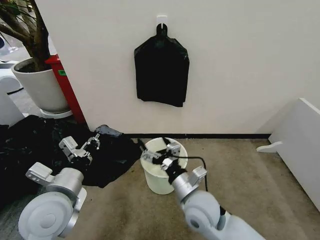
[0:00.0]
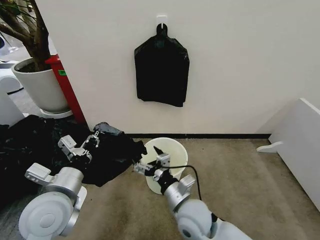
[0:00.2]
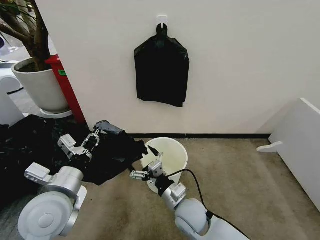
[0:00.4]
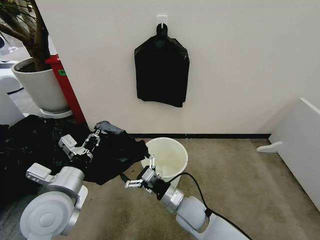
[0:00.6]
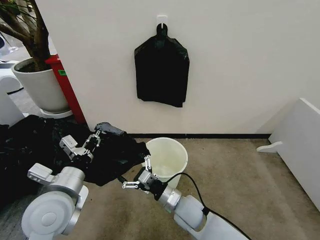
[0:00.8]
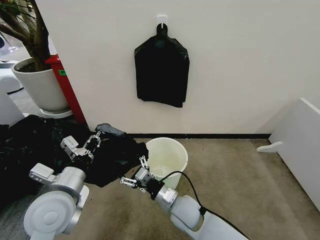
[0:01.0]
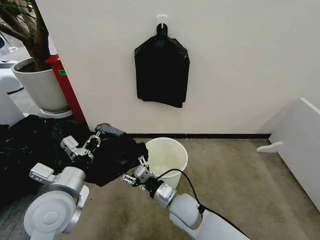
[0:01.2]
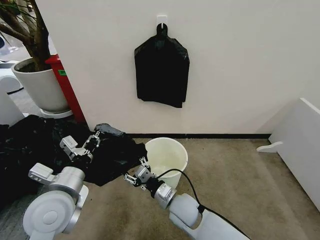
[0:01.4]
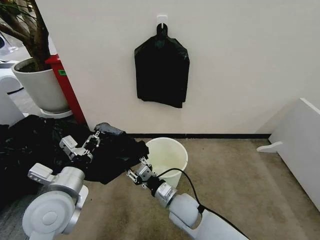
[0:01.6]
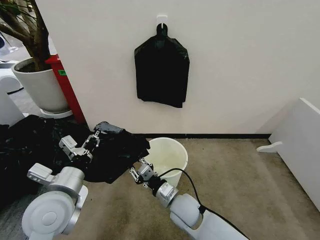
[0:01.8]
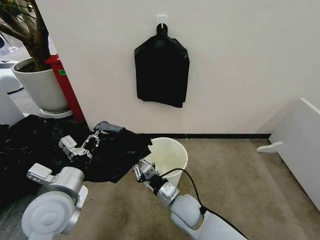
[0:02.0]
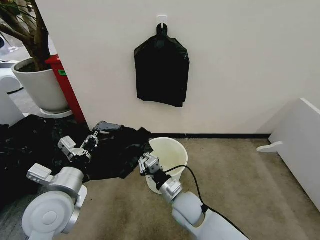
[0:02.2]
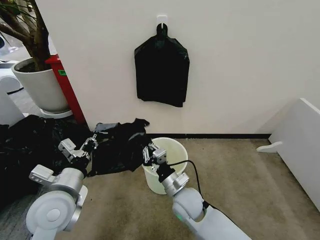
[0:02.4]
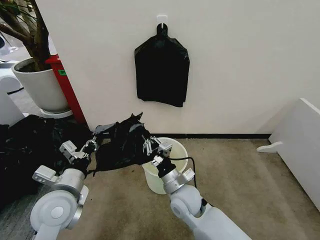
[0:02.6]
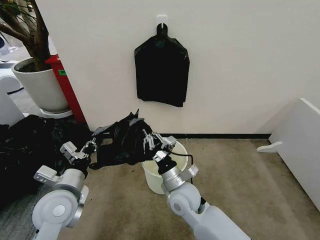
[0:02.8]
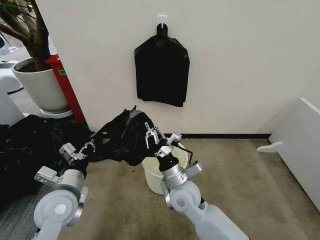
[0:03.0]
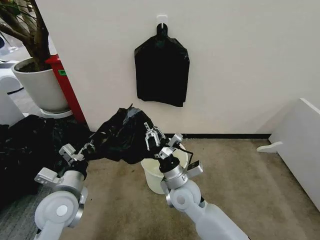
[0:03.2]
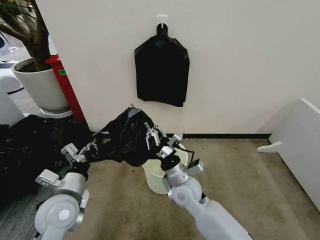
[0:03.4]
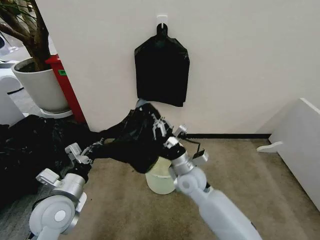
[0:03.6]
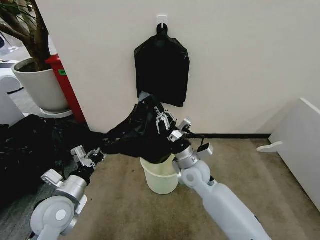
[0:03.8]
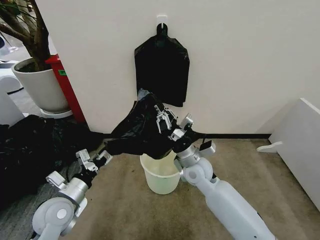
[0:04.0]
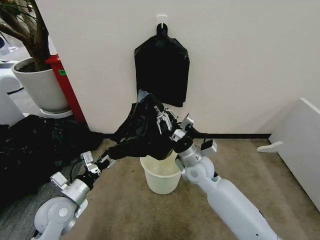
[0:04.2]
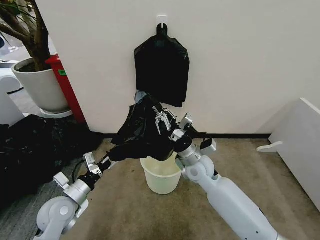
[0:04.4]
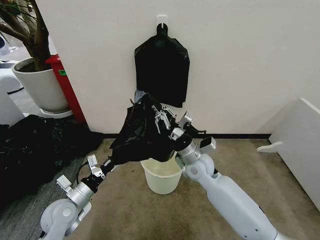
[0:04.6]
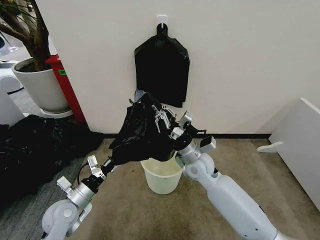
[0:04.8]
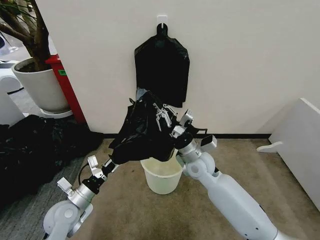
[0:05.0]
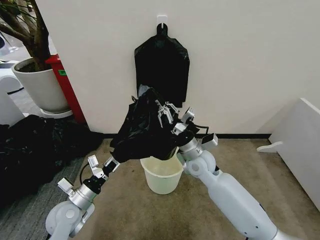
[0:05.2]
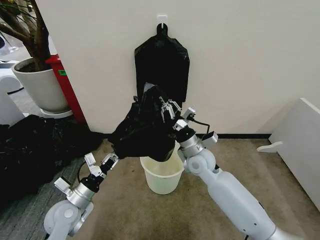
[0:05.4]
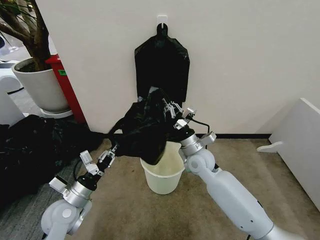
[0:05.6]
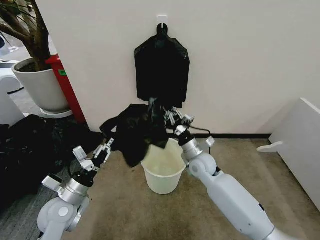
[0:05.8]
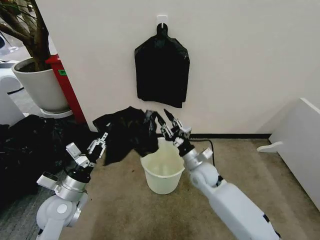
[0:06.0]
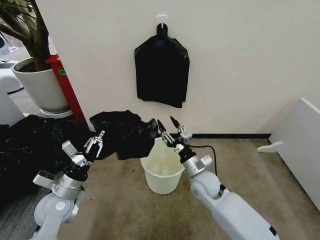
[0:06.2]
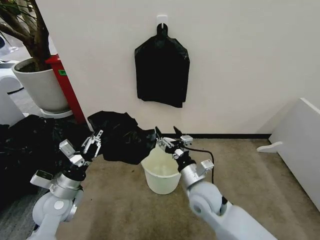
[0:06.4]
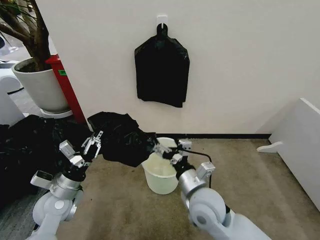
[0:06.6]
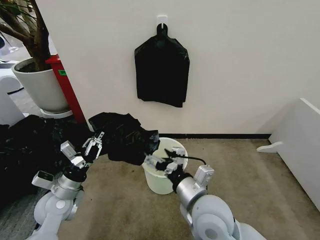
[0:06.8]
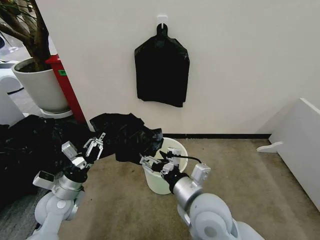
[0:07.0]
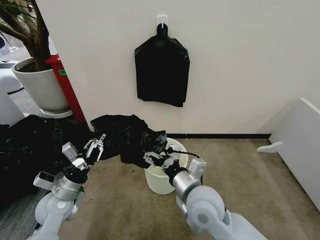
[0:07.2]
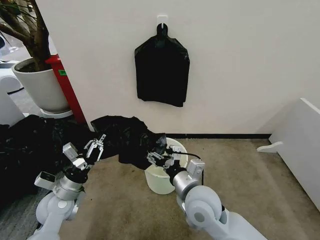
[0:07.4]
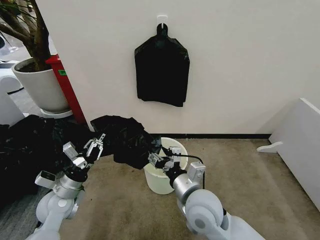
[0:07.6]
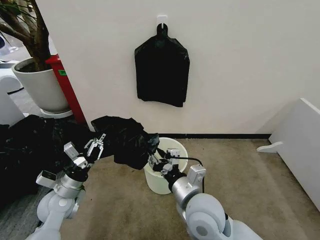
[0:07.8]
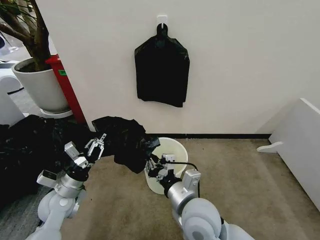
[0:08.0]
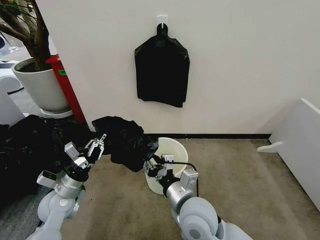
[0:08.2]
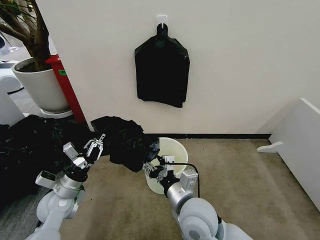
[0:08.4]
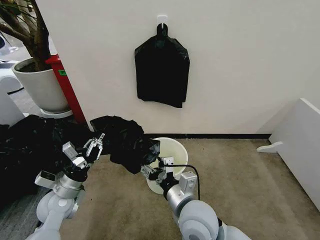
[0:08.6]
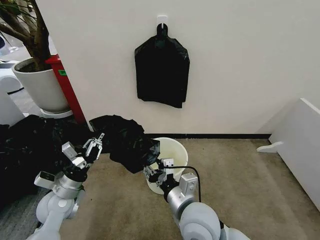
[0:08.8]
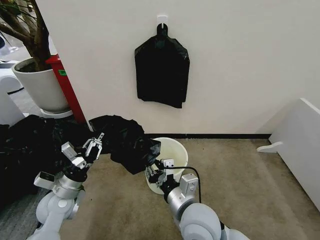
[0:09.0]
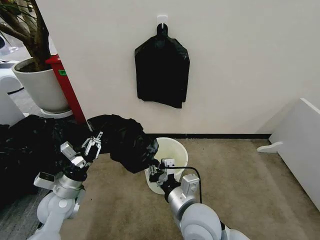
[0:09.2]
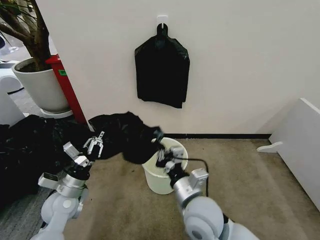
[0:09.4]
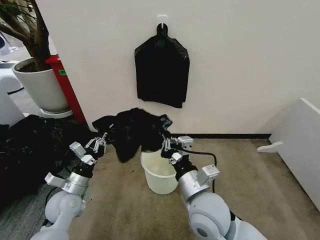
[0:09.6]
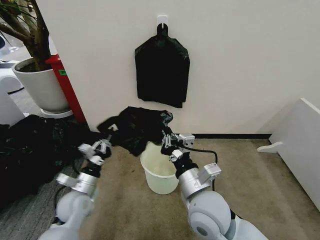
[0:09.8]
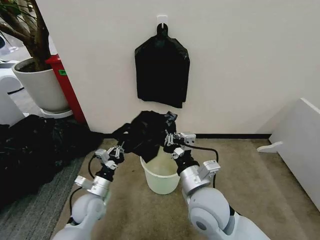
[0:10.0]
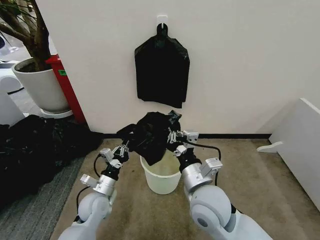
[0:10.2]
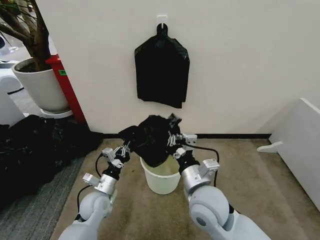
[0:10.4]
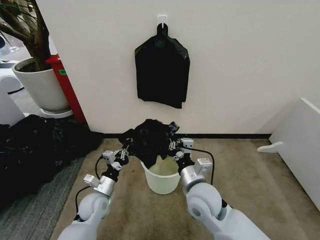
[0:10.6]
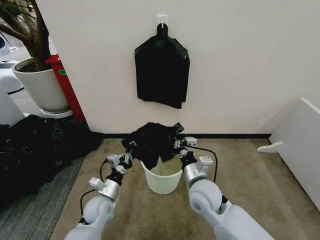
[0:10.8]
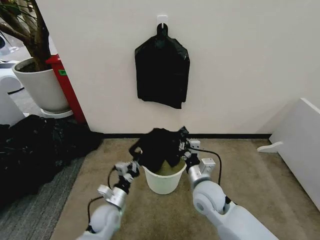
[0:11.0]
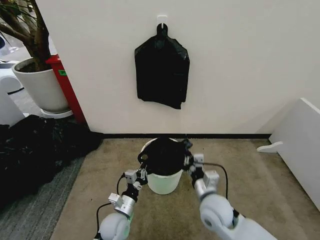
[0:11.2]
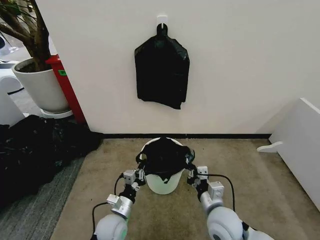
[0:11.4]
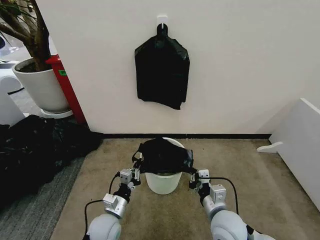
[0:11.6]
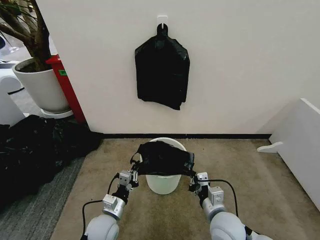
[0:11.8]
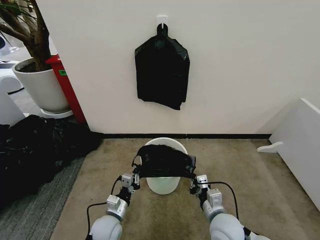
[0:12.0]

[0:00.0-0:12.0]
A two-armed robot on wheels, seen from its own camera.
Task of the whole recording: Place the garbage bag over the trash bin.
0.0 to 1.6 s: The right gripper travels downward by some 10 cm, and closes.
1.6 to 3.0 s: The right gripper is displaced upward by approximately 5 cm, and closes its fingers, while the left gripper ends up approximately 5 cm from where it was.
3.0 to 4.4 s: The left gripper travels downward by approximately 10 cm, and opens. Meanwhile the right gripper heads forward and to the right, covering roughly 10 cm.
4.4 to 6.0 s: The right gripper is displaced downward by some 5 cm, and opens, while the left gripper closes its fingers.
6.0 to 7.6 s: The right gripper is displaced backward and upward by some 15 cm, and opens, then closes again.
7.6 to 9.0 s: The right gripper closes.
9.0 to 10.4 s: The left gripper goes approximately 10 cm to the right and downward.
10.4 to 12.0 s: The right gripper goes roughly 15 cm downward and to the right; the left gripper heads downward and backward, covering approximately 10 cm.

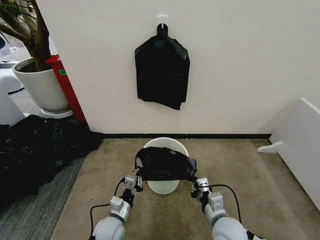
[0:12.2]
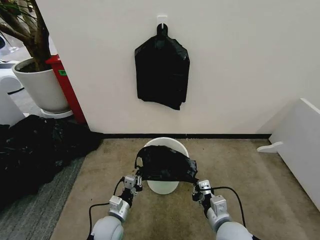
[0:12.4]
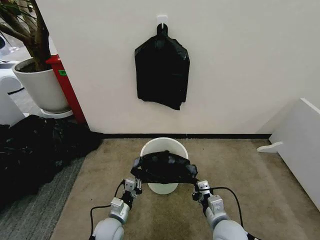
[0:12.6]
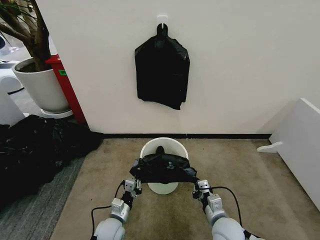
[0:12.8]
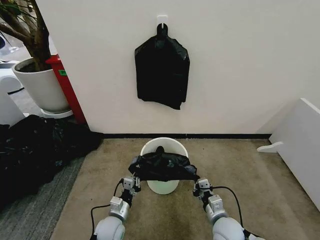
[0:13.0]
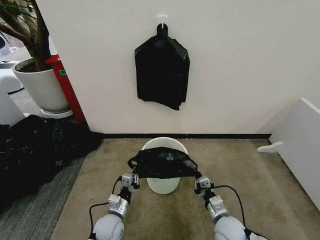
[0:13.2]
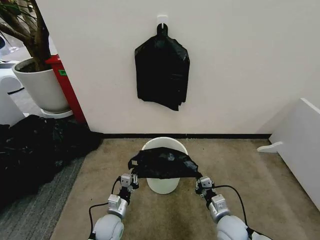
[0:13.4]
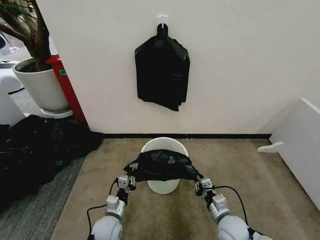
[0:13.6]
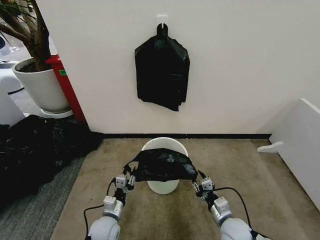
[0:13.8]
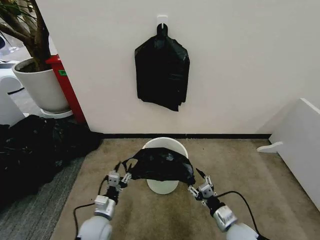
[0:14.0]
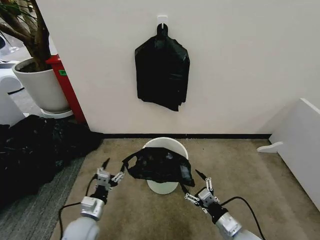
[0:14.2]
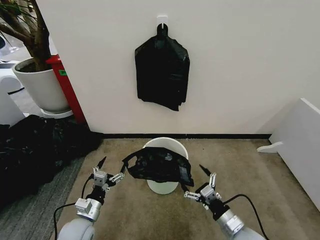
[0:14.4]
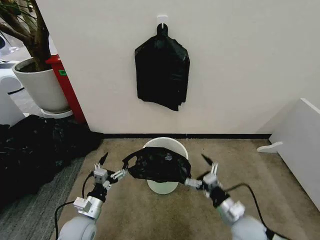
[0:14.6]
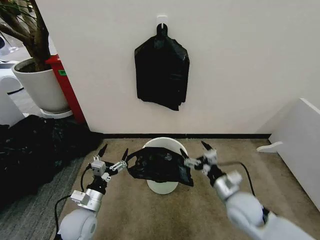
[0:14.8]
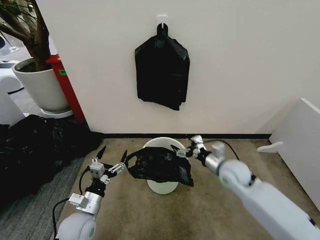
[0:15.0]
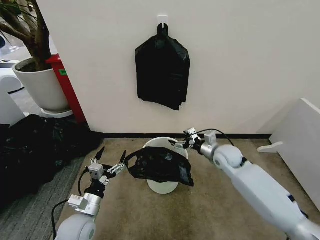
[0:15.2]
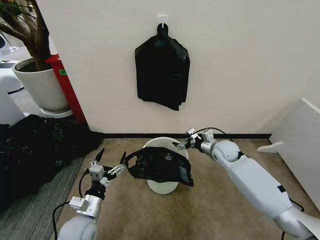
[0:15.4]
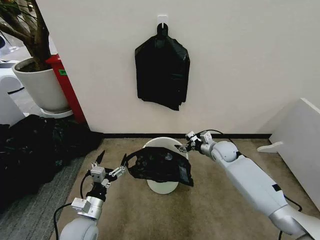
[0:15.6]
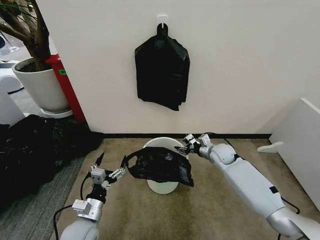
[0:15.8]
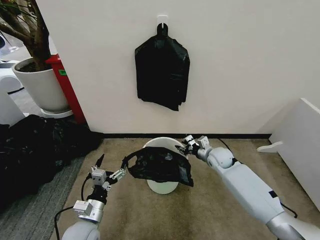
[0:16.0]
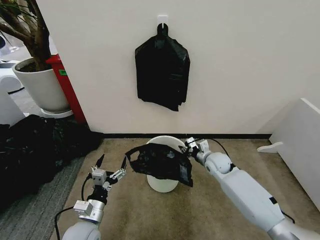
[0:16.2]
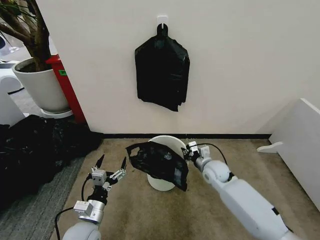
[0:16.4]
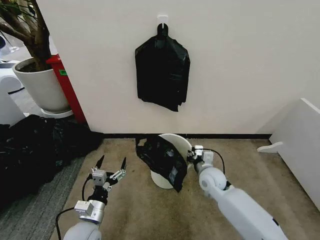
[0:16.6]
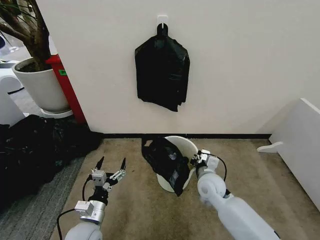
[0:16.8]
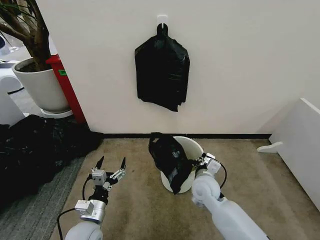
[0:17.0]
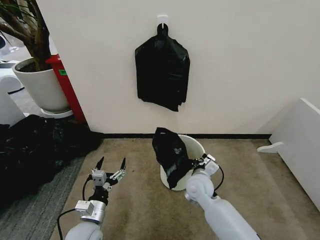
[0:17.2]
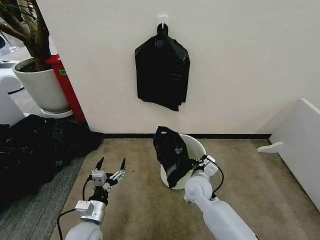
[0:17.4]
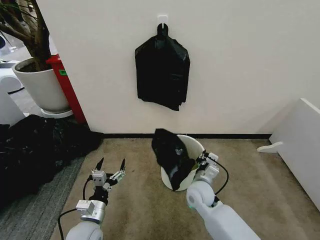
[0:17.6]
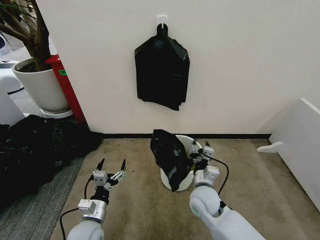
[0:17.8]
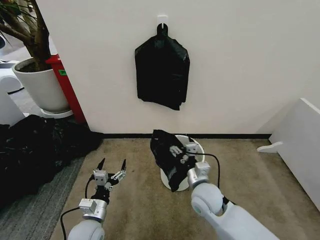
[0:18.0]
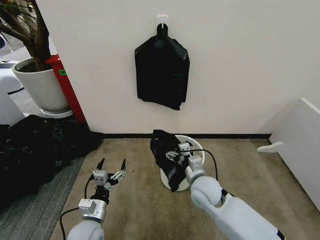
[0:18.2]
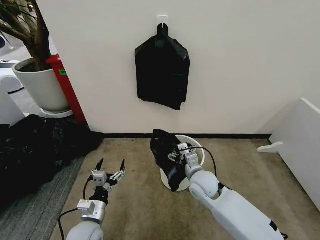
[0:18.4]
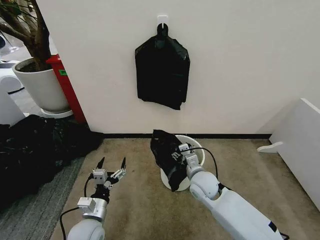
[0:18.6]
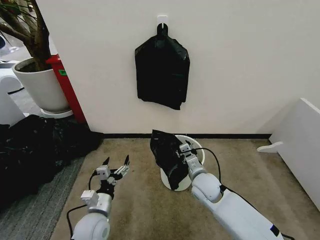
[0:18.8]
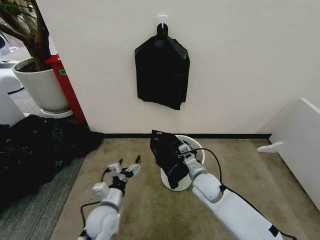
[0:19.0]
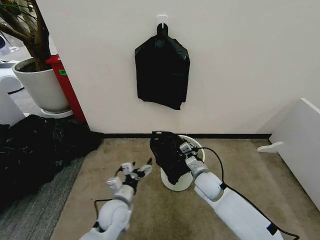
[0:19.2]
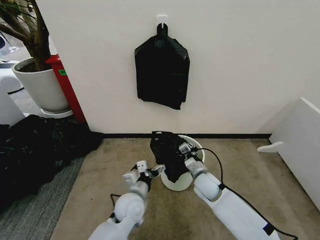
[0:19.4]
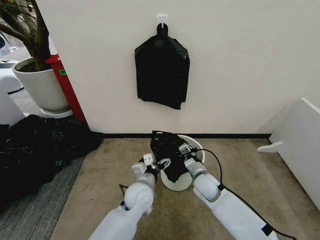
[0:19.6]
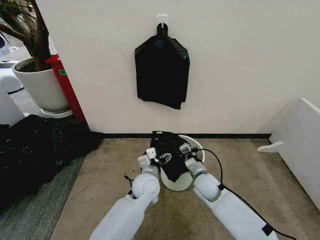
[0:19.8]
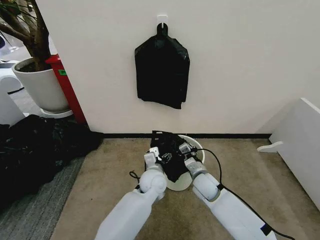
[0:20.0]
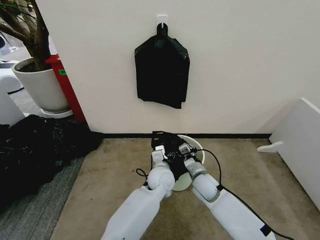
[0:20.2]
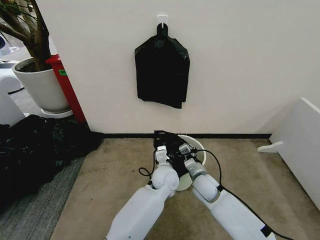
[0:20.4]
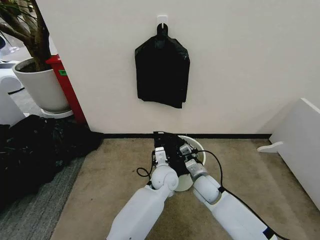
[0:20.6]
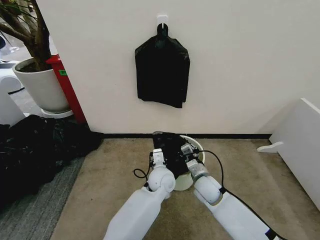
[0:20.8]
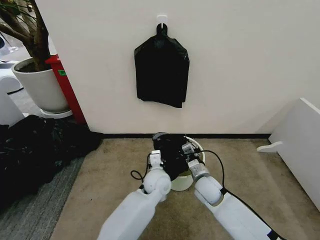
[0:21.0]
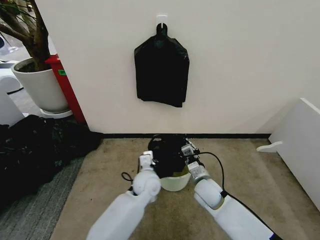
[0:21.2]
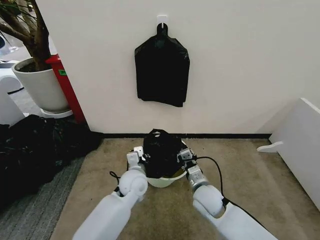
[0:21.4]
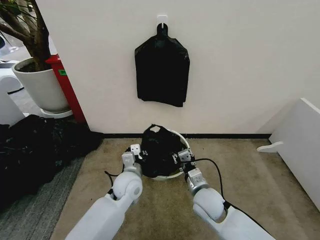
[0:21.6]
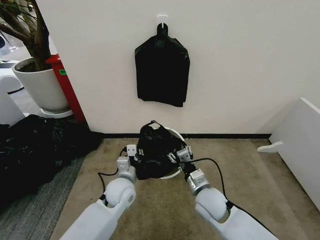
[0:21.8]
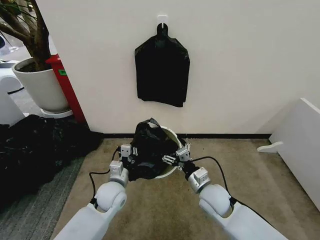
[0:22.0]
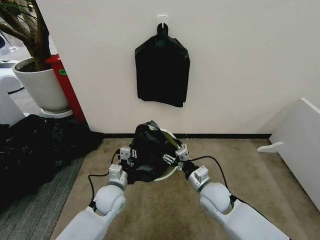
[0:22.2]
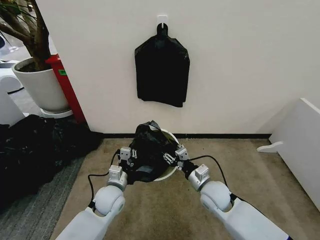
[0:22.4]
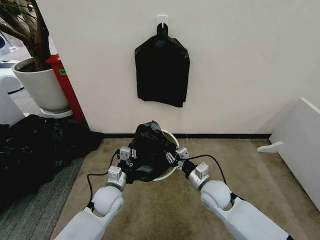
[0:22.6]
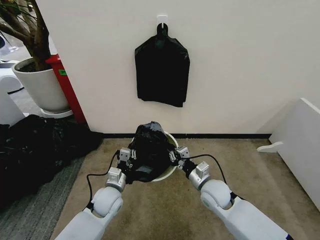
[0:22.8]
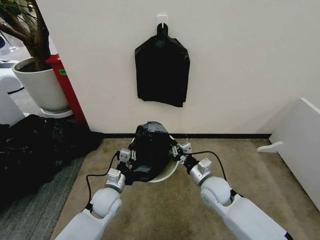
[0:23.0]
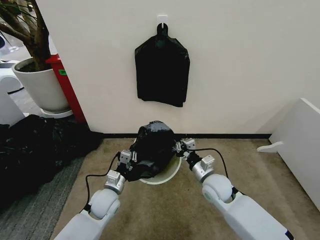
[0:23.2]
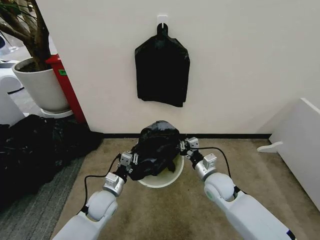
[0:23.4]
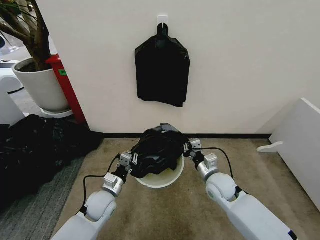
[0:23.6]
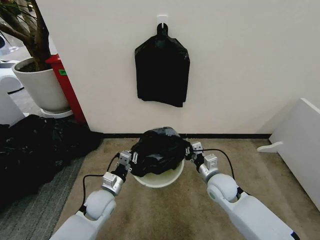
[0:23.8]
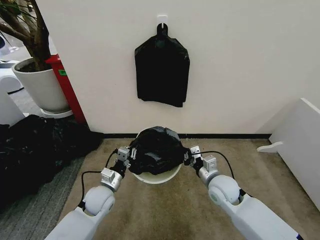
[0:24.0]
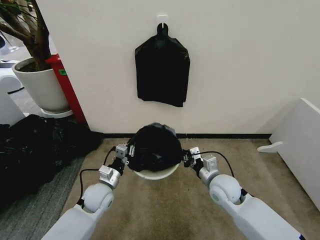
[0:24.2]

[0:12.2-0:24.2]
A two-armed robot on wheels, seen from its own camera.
Task of the whole recording: Place the garbage bag over the trash bin.
12.2 to 13.8 s: The right gripper heads downward, covering about 5 cm.
13.8 to 15.2 s: The right gripper is displaced forward and upward by about 25 cm, and opens. The left gripper travels upward and to the left by about 10 cm, and opens.
15.2 to 16.6 s: The right gripper heads downward, to the left and backward, covering approximately 10 cm, and closes its fingers.
16.6 to 18.2 s: The right gripper moves backward and to the left, approximately 10 cm, and opens up.
18.2 to 19.8 s: The left gripper is displaced to the right and forward by about 25 cm, while the right gripper moves downward, roughly 5 cm, and closes.
19.8 to 21.2 s: The left gripper reaches approximately 5 cm to the right, then returns, and closes.
21.2 to 22.6 s: The left gripper goes approximately 15 cm to the left; the right gripper opens and closes again.
